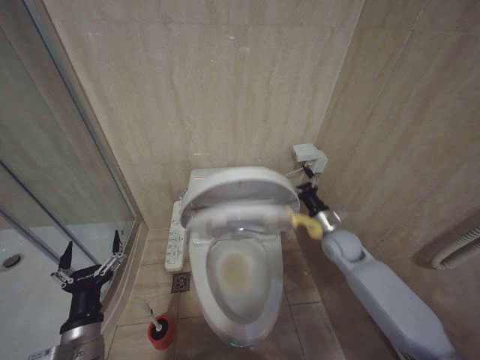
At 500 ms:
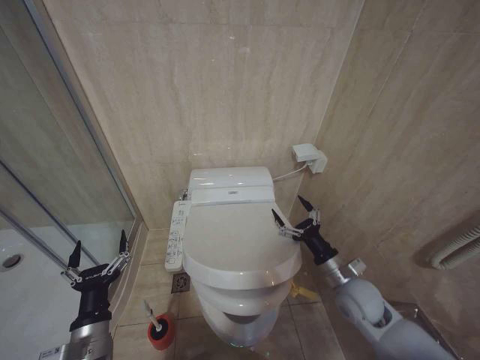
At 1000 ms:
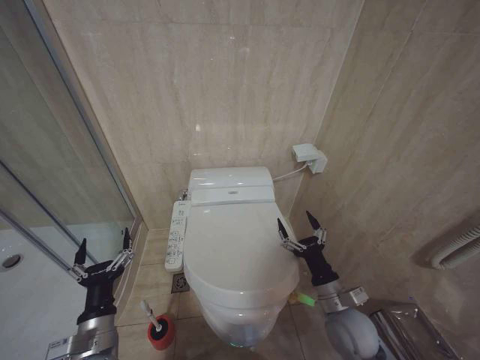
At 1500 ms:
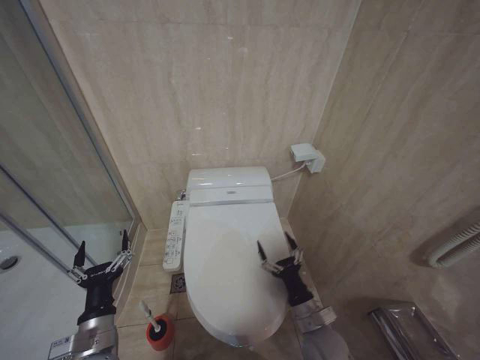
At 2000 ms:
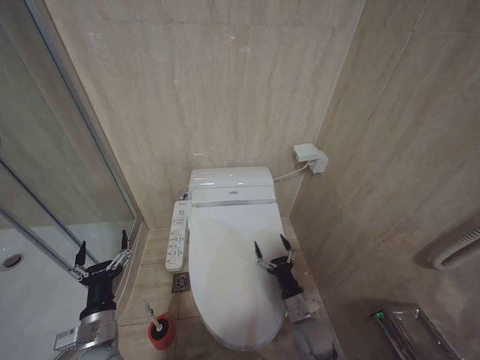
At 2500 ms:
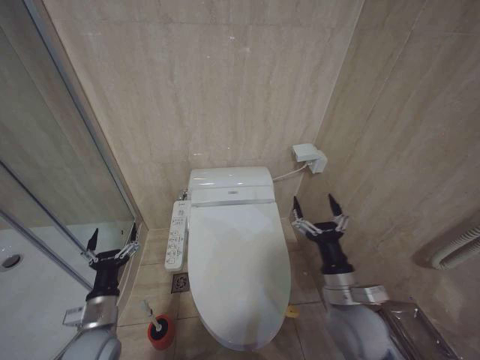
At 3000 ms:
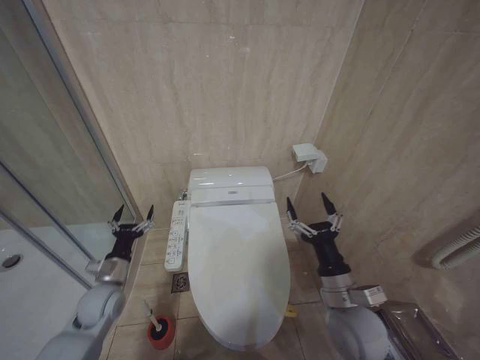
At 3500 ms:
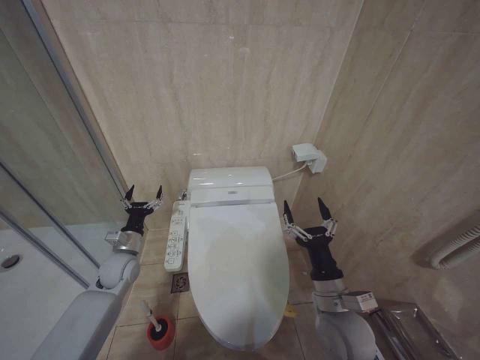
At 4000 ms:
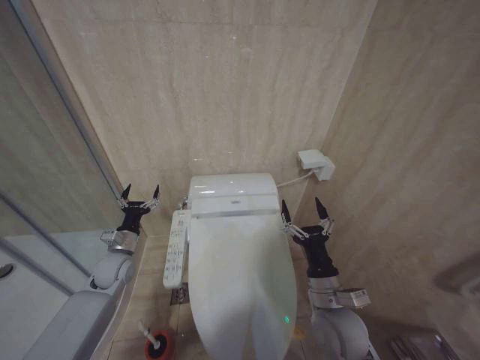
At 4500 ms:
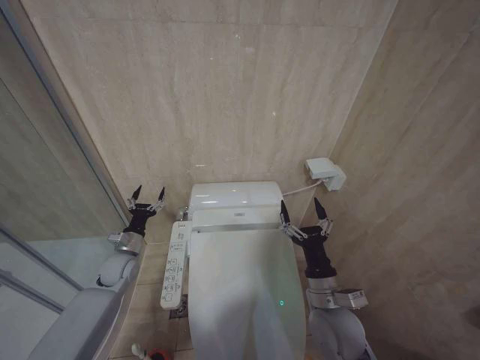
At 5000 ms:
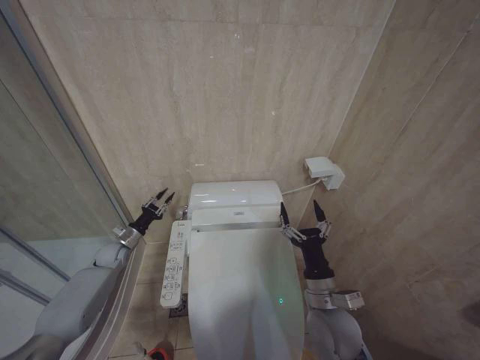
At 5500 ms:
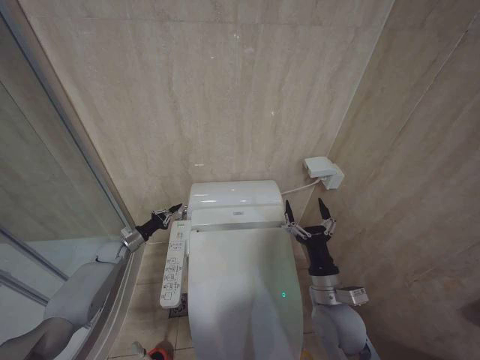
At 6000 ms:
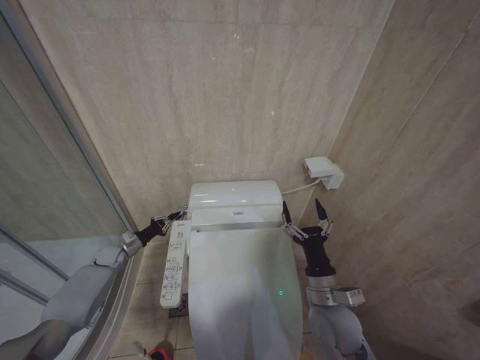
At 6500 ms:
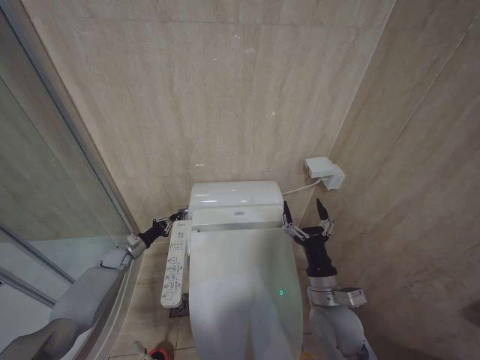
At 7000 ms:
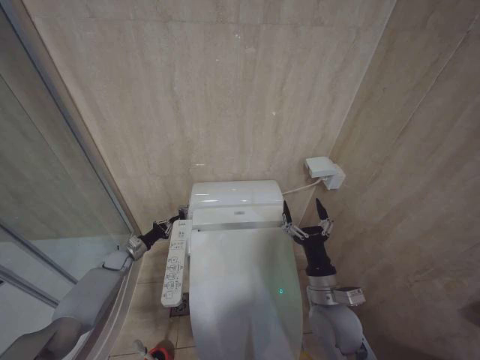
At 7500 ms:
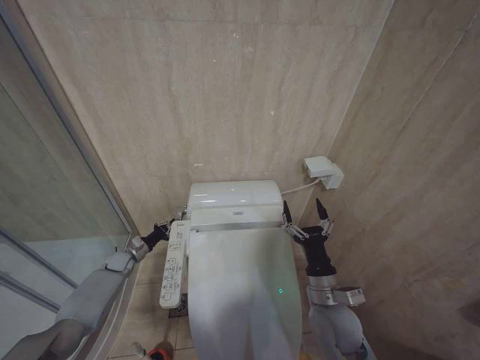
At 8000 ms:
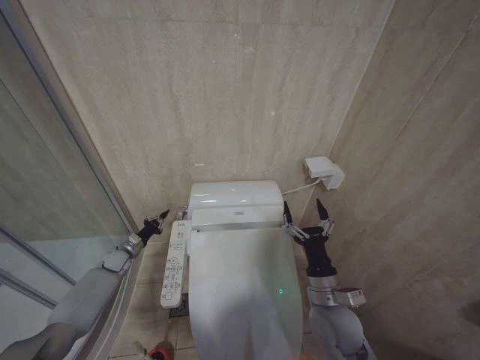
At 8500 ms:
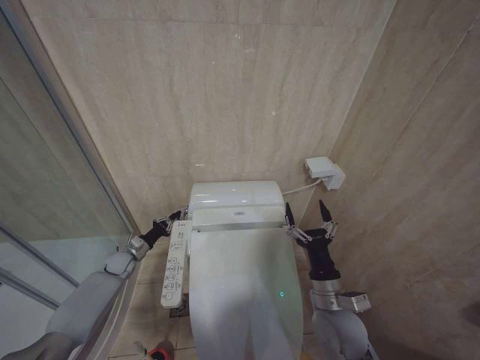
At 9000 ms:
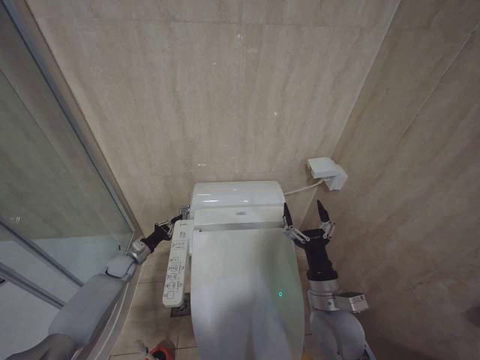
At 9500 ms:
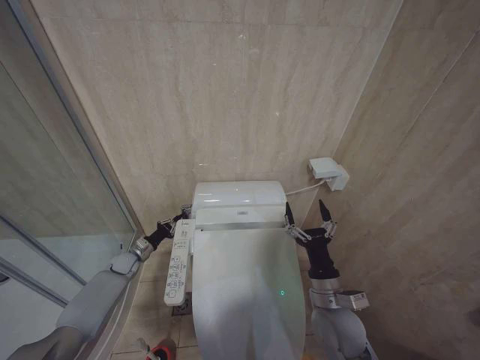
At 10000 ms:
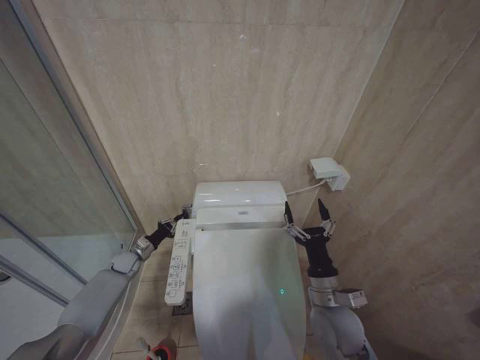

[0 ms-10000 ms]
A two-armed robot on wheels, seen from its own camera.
Task of the whole recording: Open the toilet lid, clean the toilet bowl with a toilet brush, close the toilet lid, and flush.
0 ms to 2000 ms: The left gripper shifts by some 5 cm. The right gripper heads backward, downward and to the left, covering about 30 cm.
2000 ms to 4000 ms: The left gripper goes about 20 cm forward, while the right gripper goes some 15 cm upward.
4000 ms to 6000 ms: The left gripper heads forward, to the left and downward, covering about 15 cm, and closes up.
6000 ms to 8000 ms: The grippers move only a little.
8000 ms to 10000 ms: There are only small adjustments of the grippers.

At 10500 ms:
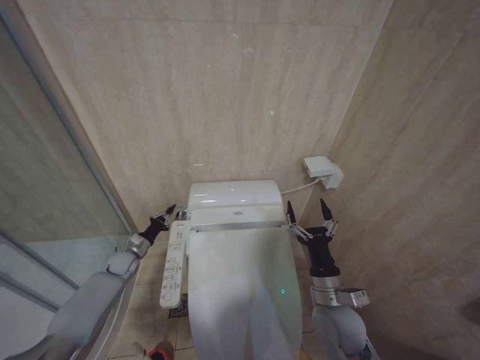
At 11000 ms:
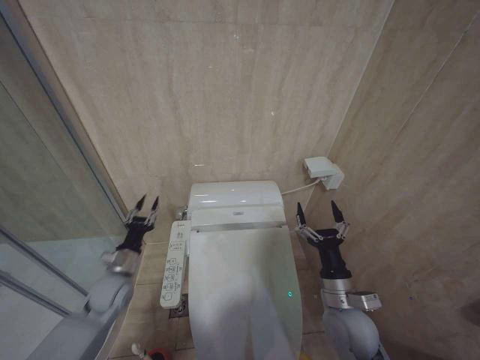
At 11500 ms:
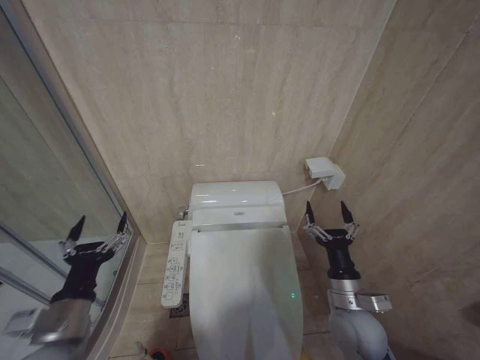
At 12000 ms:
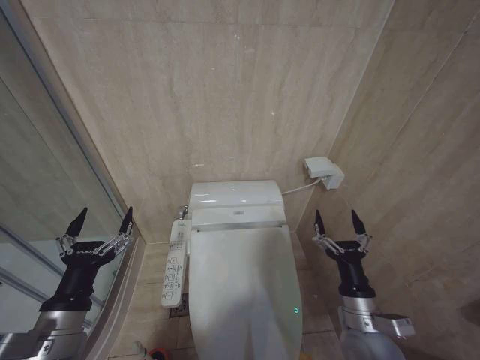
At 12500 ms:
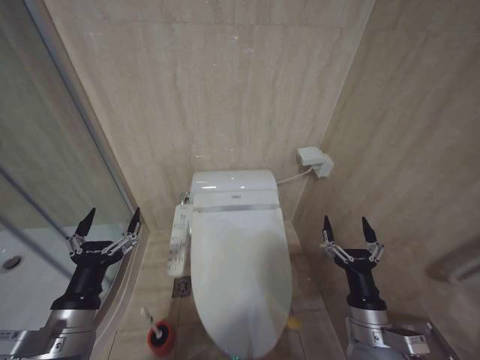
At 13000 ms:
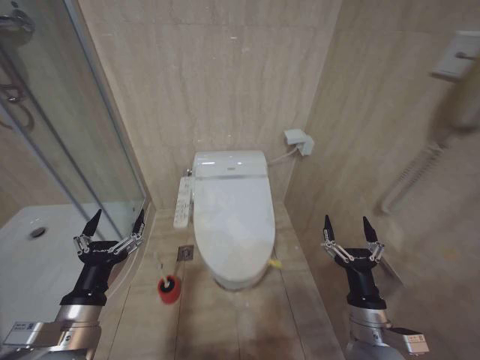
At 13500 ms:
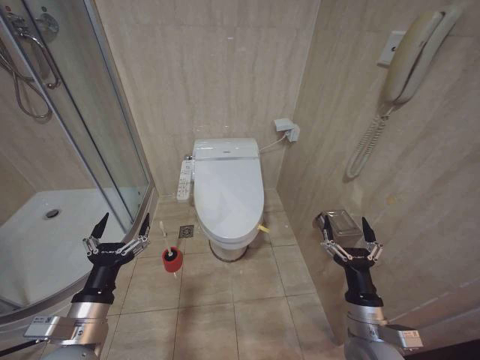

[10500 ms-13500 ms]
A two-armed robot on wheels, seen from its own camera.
Task of the whole recording: Open the toilet lid, clean the toilet bowl with a toilet brush, close the toilet lid, and flush.
10500 ms to 12000 ms: The left gripper travels backward and upward by about 40 cm, and opens its fingers. Meanwhile the right gripper changes place by roughly 5 cm.

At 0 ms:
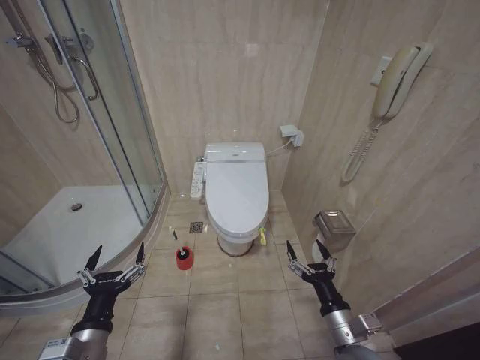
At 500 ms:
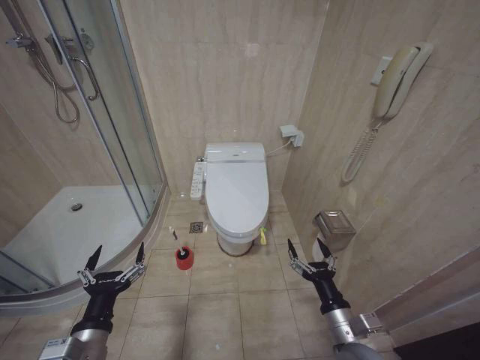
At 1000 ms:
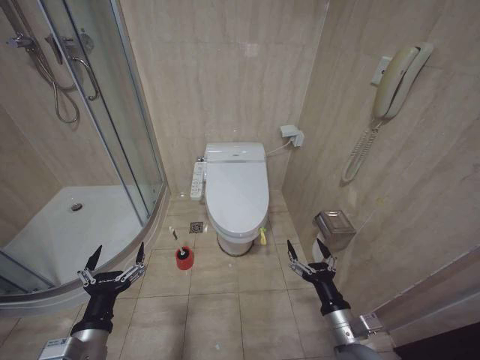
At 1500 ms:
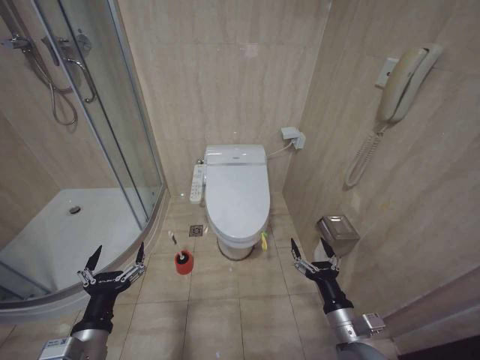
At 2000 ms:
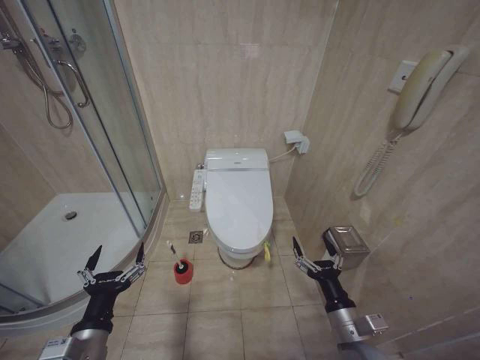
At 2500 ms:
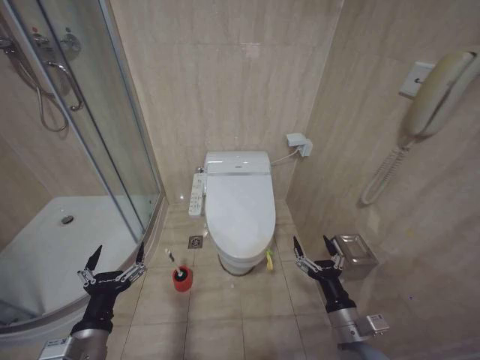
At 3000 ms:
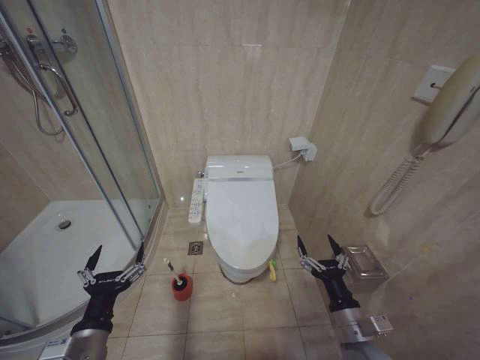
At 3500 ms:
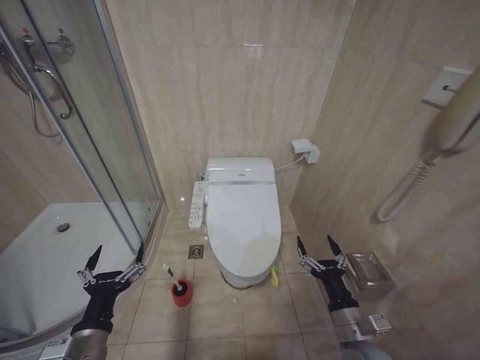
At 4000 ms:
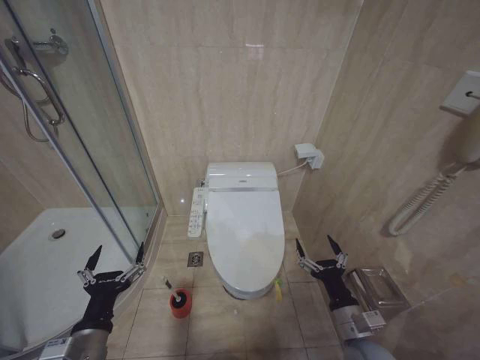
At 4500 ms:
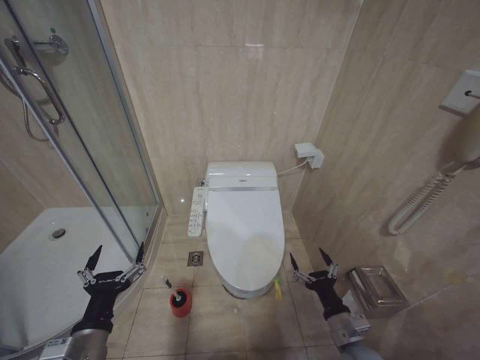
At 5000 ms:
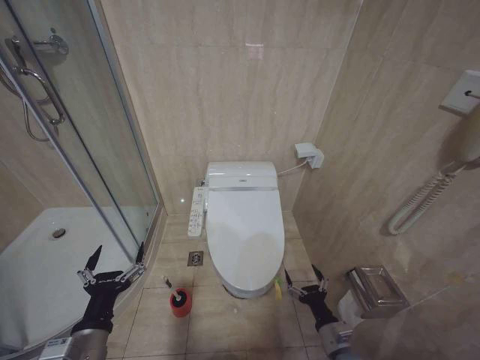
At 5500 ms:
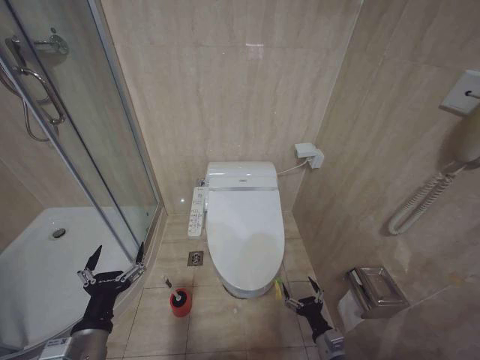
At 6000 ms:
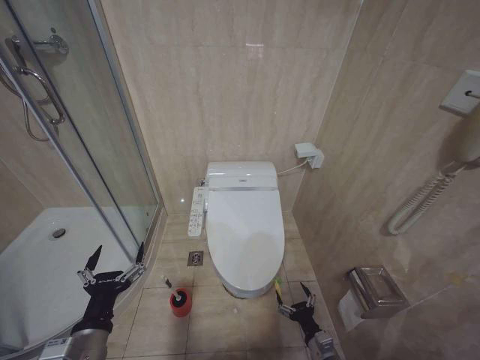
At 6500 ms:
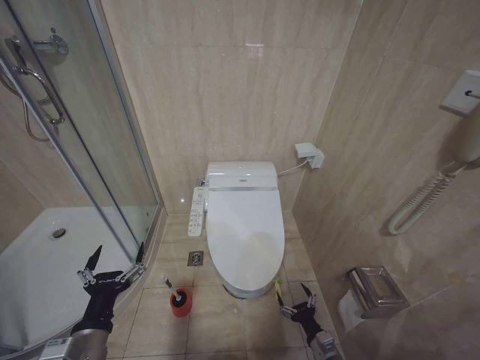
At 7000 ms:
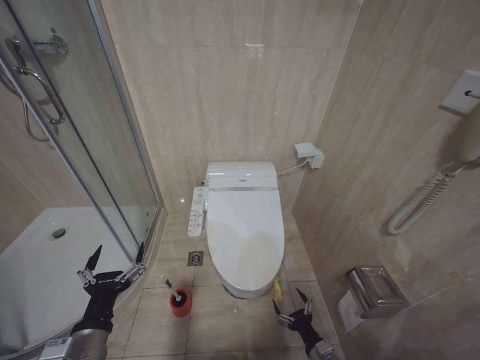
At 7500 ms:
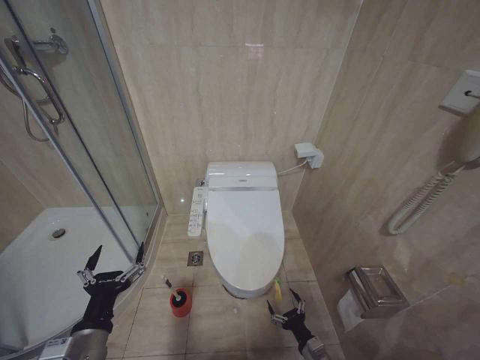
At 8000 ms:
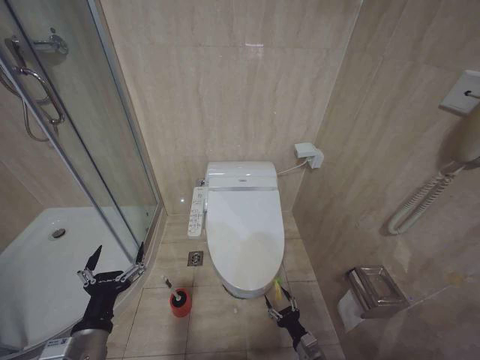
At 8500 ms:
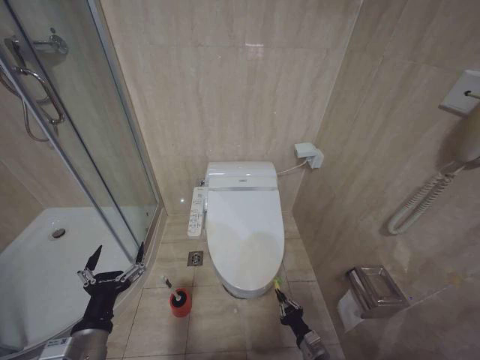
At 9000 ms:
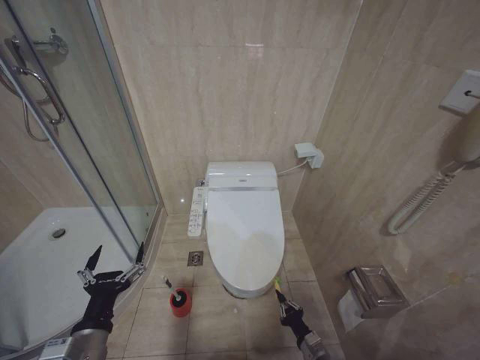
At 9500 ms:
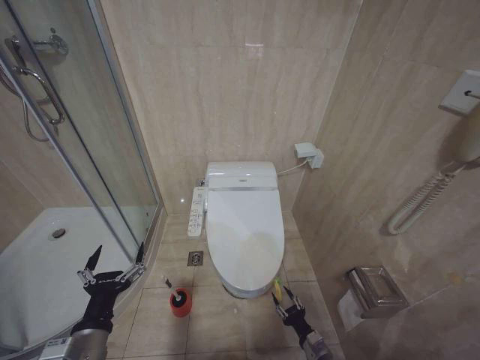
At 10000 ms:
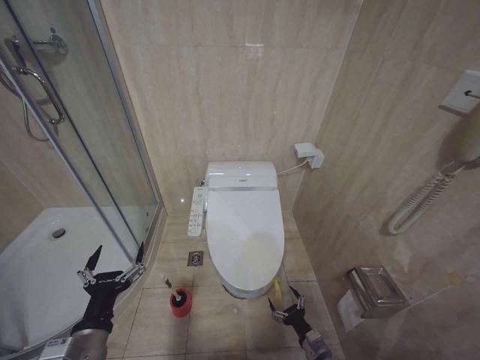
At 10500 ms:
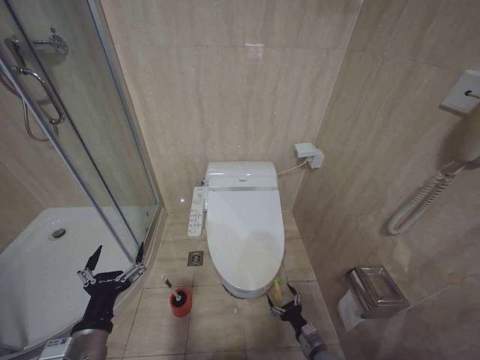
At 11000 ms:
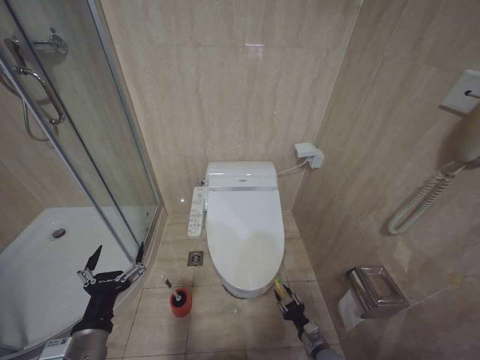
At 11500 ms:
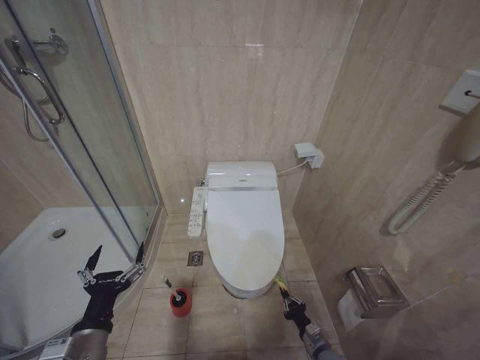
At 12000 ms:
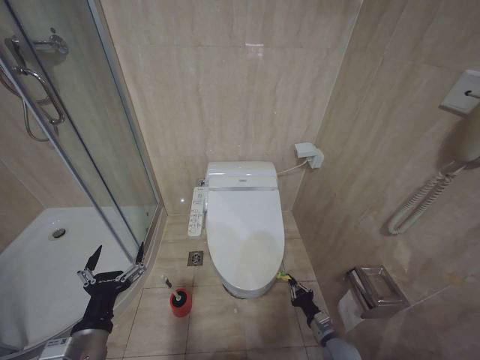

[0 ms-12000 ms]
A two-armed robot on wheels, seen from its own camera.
Task of the whole recording: Open the toilet lid, clean the toilet bowl with a toilet brush, close the toilet lid, and flush.
2000 ms to 4000 ms: The grippers stay close to where they were, moving slightly.
4000 ms to 6000 ms: The right gripper travels downward by roughly 20 cm.
10000 ms to 12000 ms: The right gripper closes its fingers.
